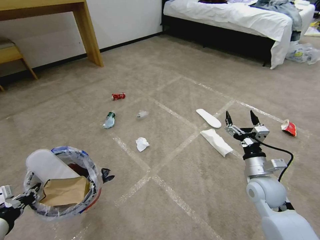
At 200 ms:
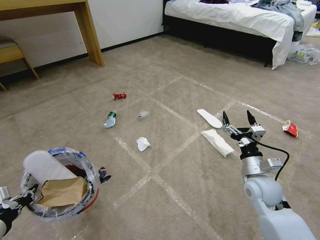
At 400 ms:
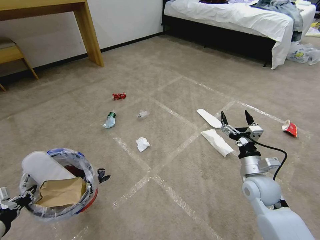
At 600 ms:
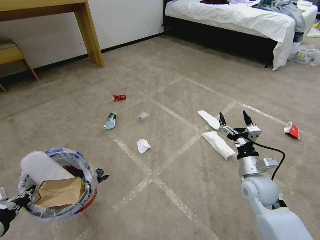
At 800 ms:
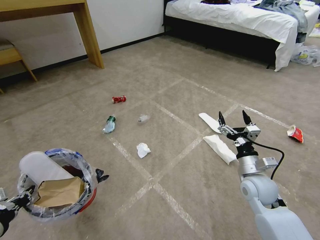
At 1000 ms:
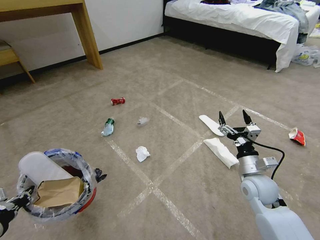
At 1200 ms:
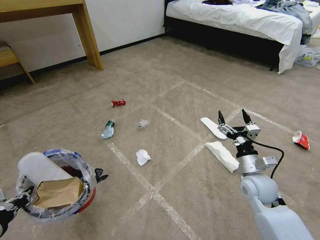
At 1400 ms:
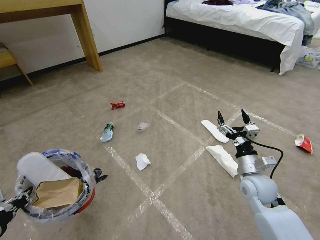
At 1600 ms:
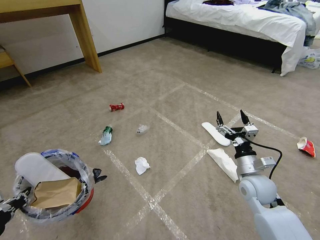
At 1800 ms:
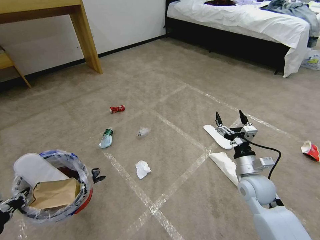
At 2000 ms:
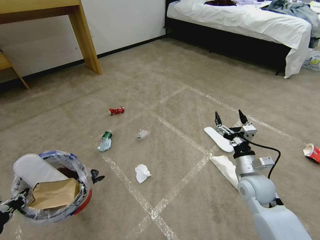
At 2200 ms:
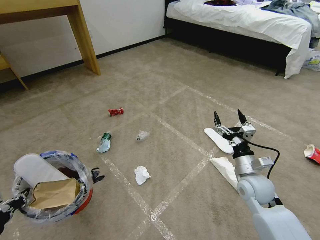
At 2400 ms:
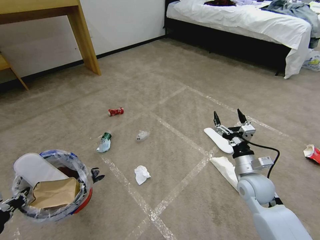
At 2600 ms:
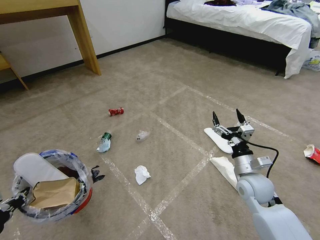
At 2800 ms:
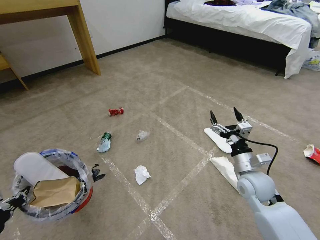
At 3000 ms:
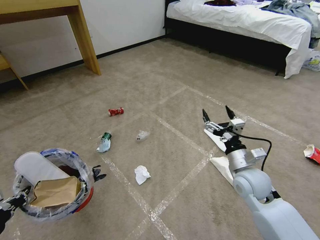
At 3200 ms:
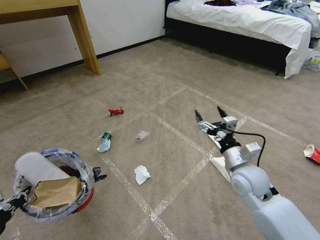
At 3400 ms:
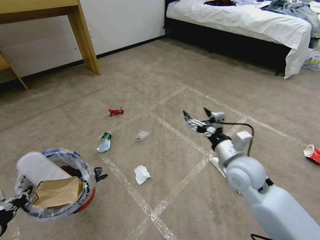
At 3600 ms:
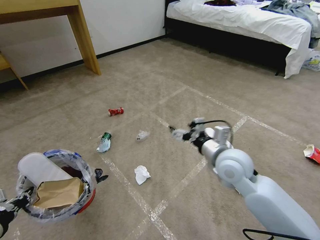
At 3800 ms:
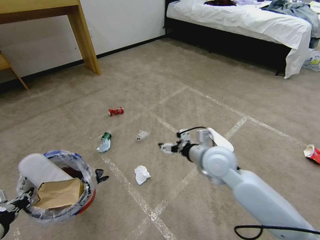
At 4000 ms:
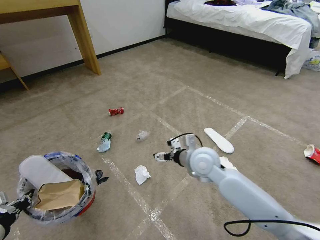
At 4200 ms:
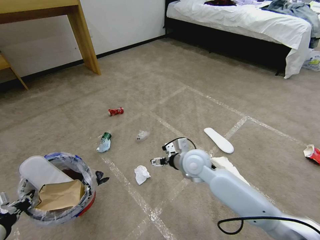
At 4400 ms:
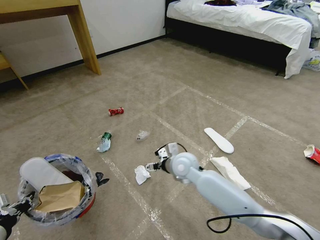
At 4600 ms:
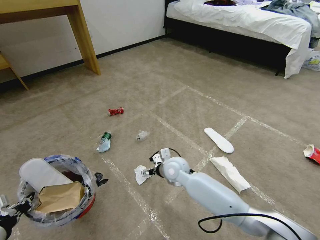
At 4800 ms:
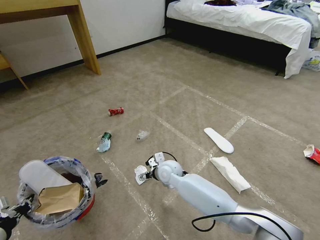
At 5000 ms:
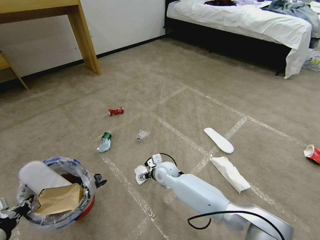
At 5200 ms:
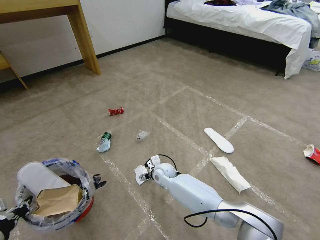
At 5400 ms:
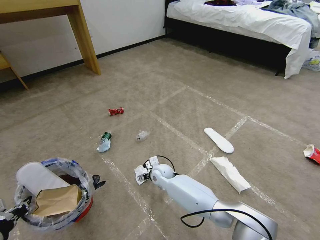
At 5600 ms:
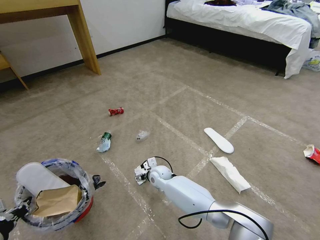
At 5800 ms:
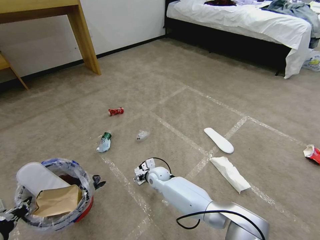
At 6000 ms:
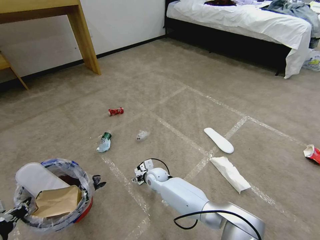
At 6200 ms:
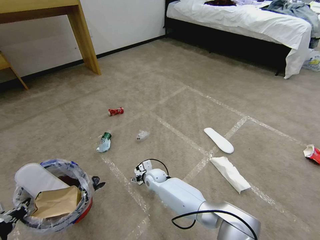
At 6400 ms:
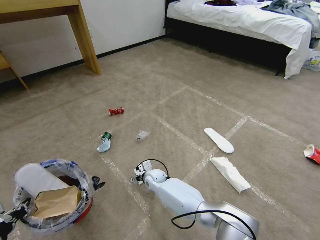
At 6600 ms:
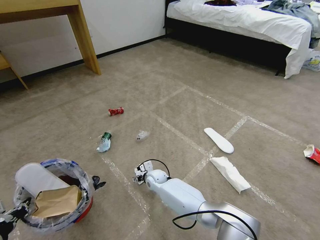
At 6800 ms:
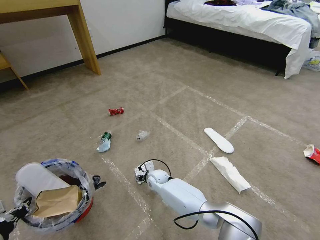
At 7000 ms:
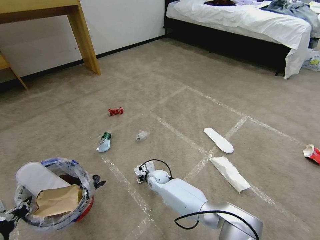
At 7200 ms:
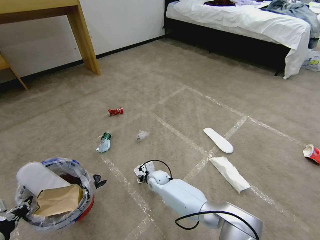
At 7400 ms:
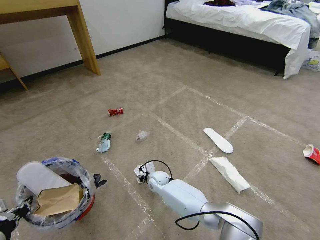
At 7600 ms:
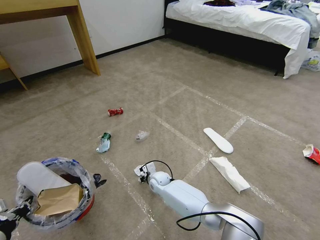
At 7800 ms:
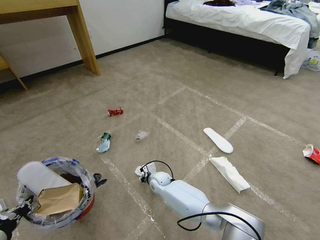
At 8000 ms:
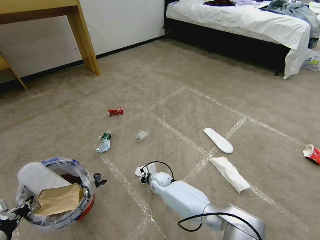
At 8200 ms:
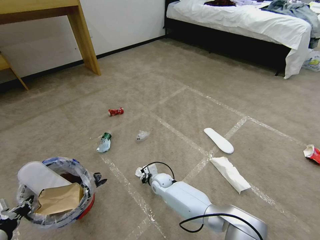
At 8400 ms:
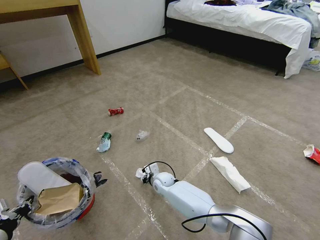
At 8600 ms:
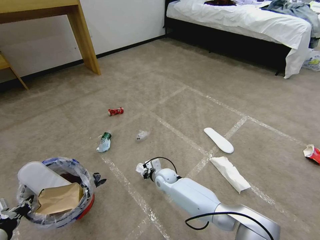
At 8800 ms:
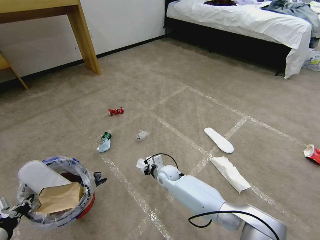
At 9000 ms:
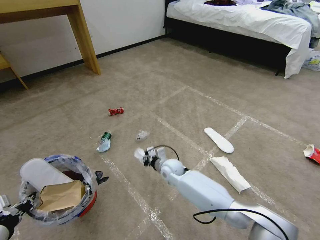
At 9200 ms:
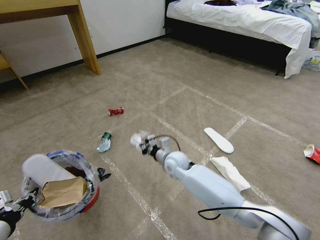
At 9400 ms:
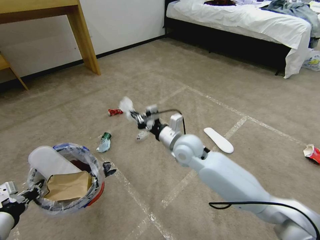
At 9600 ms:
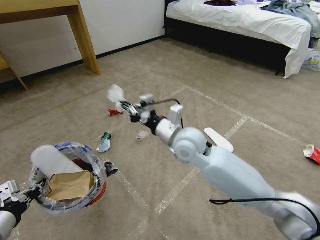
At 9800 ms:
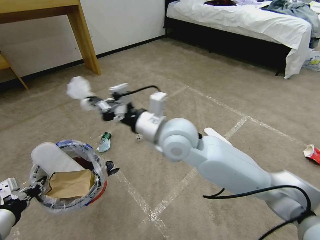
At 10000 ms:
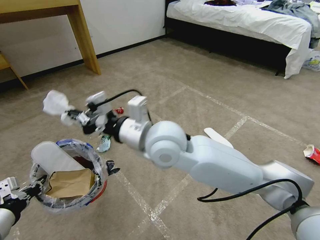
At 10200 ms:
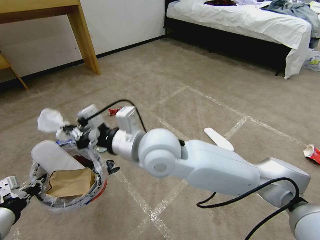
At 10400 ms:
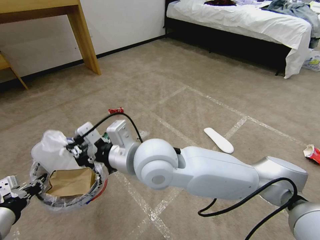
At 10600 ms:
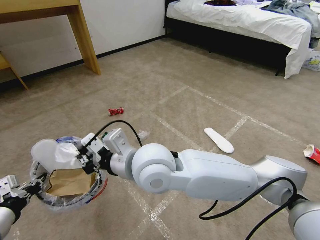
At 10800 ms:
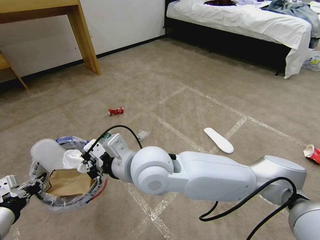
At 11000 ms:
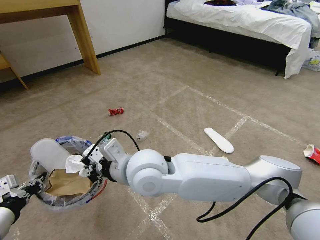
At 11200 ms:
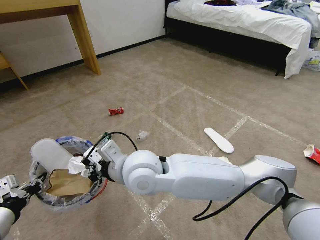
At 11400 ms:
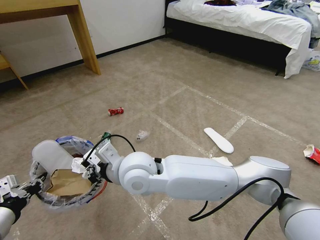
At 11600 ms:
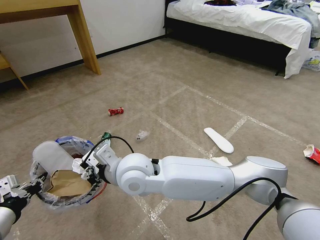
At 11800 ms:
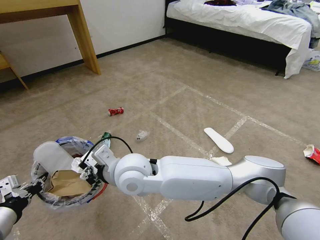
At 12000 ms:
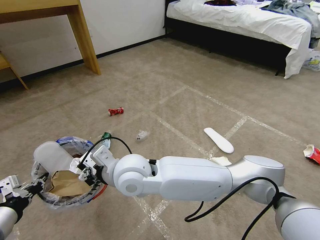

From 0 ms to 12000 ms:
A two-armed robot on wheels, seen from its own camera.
Task of the whole recording: Pick up the trash bin and place the garbage on the floor into it.
From 1600 ms to 3000 ms: There are only small adjustments of the grippers.
From 3000 ms to 4400 ms: The right gripper goes about 20 cm to the left and forward.
From 4400 ms to 6000 ms: The right gripper goes approximately 20 cm downward and to the left.
From 6000 ms to 7600 ms: The right gripper closes up.
From 7600 ms to 9000 ms: The right gripper shifts about 10 cm upward.
From 9000 ms to 10400 ms: The right gripper shifts some 35 cm upward and backward; the left gripper ends up roughly 5 cm from where it was.
From 10400 ms to 12000 ms: The right gripper shifts roughly 10 cm downward and to the left.

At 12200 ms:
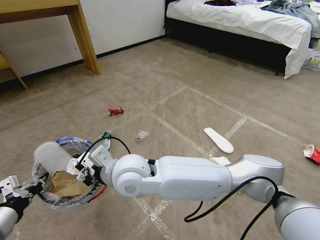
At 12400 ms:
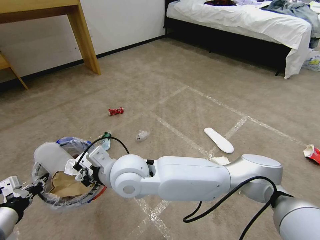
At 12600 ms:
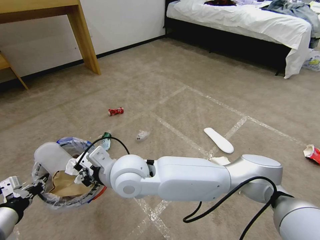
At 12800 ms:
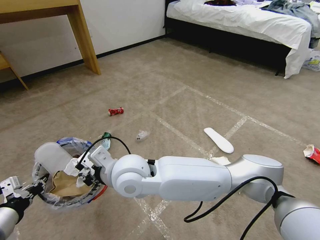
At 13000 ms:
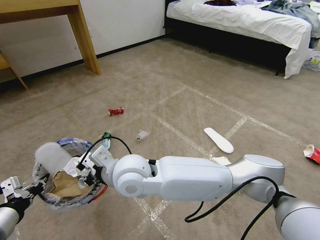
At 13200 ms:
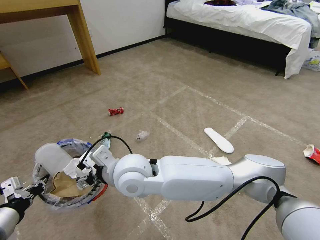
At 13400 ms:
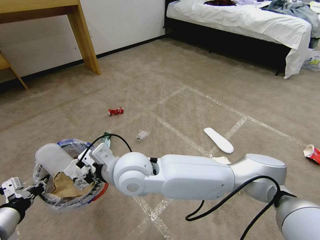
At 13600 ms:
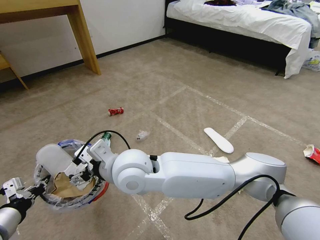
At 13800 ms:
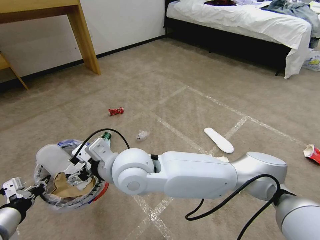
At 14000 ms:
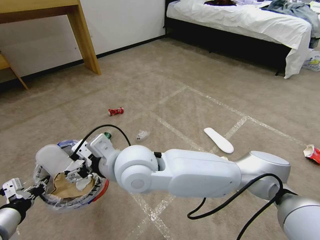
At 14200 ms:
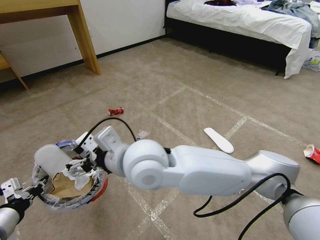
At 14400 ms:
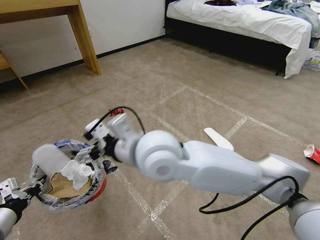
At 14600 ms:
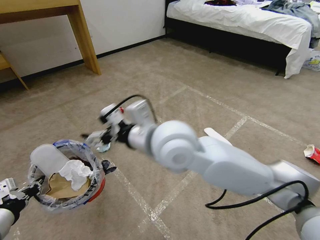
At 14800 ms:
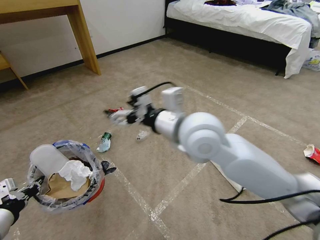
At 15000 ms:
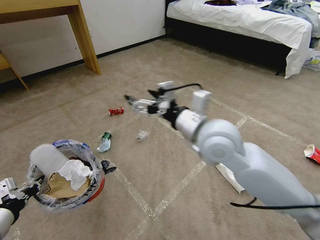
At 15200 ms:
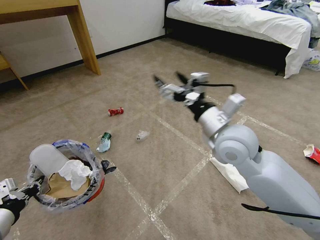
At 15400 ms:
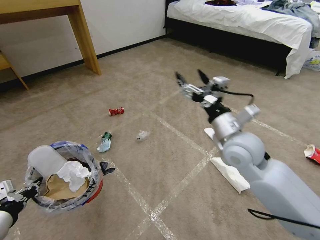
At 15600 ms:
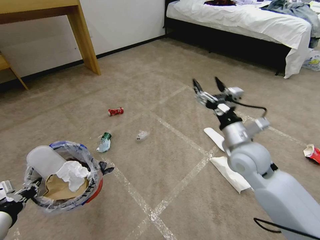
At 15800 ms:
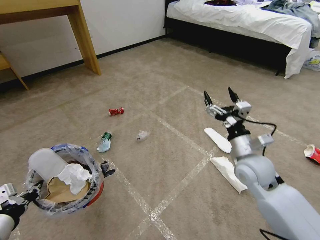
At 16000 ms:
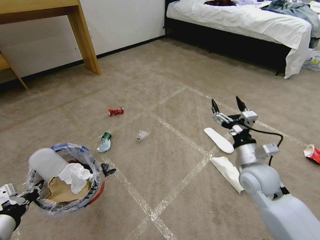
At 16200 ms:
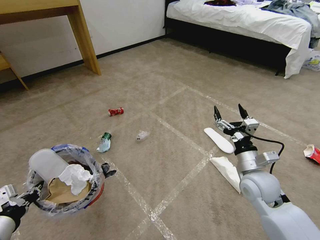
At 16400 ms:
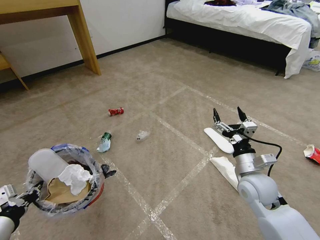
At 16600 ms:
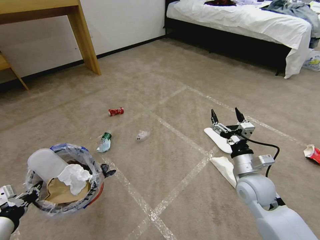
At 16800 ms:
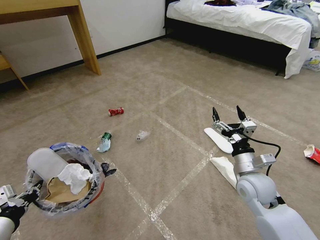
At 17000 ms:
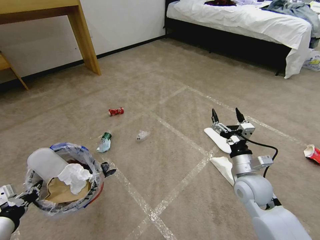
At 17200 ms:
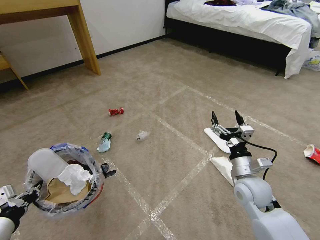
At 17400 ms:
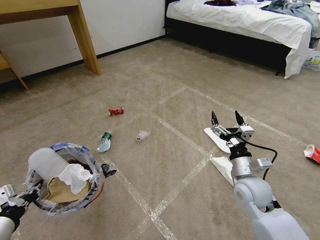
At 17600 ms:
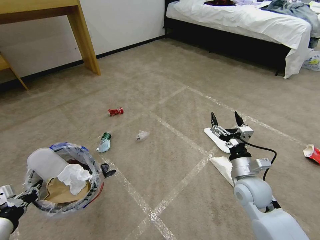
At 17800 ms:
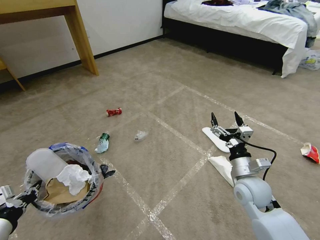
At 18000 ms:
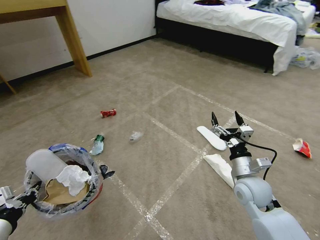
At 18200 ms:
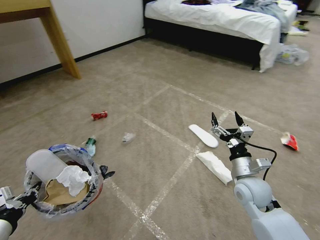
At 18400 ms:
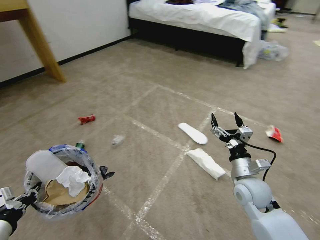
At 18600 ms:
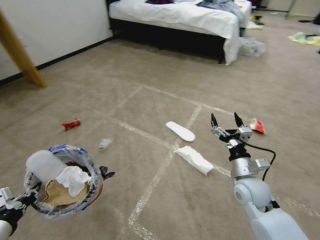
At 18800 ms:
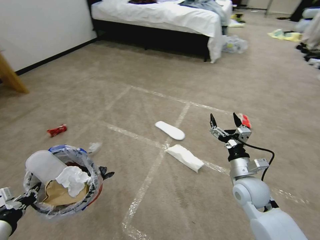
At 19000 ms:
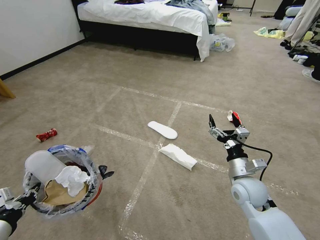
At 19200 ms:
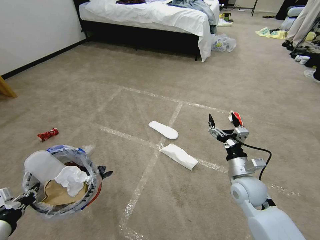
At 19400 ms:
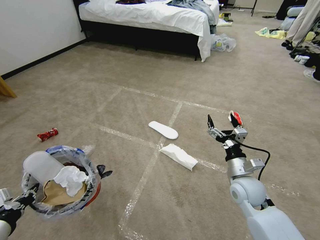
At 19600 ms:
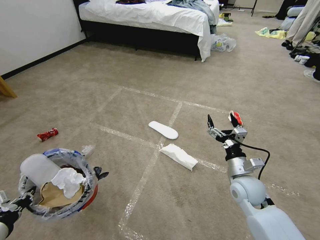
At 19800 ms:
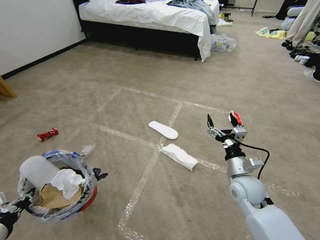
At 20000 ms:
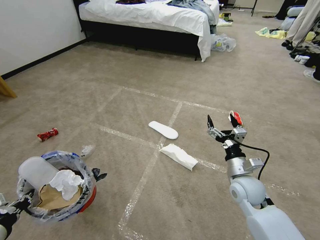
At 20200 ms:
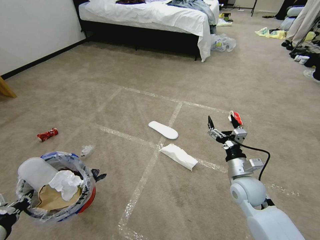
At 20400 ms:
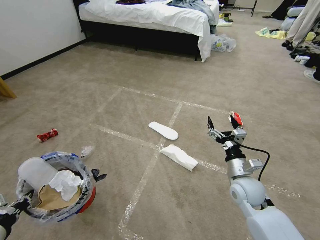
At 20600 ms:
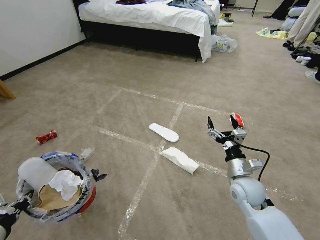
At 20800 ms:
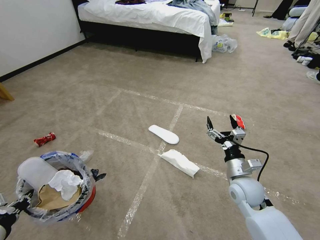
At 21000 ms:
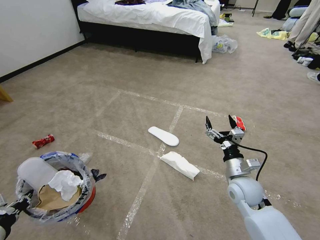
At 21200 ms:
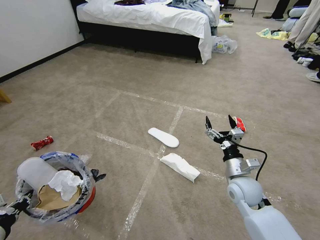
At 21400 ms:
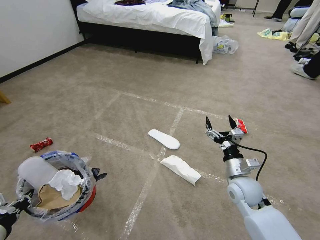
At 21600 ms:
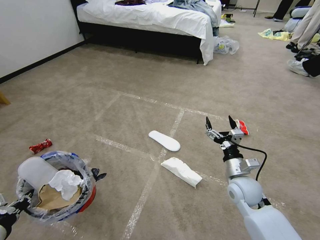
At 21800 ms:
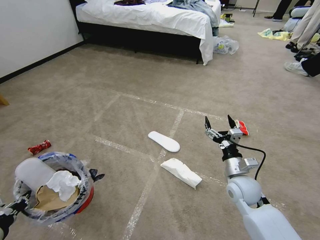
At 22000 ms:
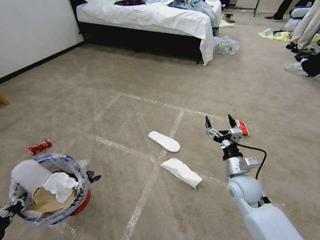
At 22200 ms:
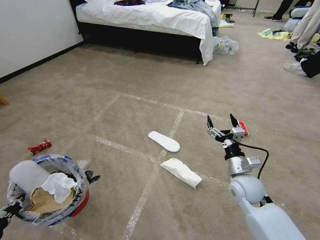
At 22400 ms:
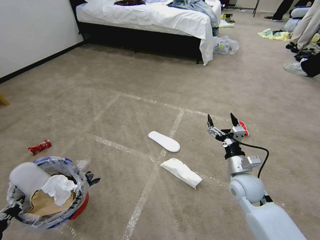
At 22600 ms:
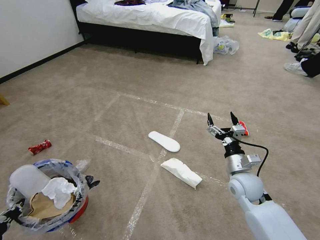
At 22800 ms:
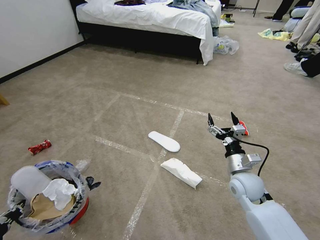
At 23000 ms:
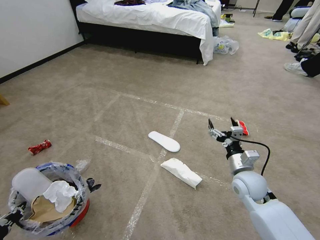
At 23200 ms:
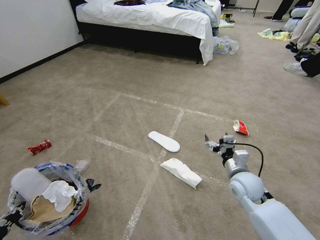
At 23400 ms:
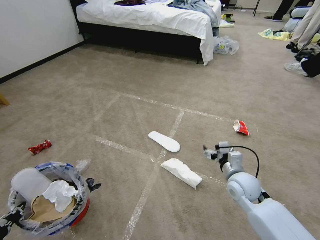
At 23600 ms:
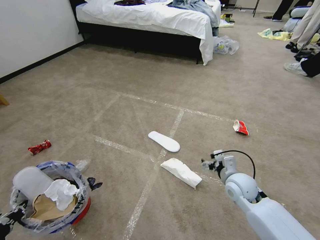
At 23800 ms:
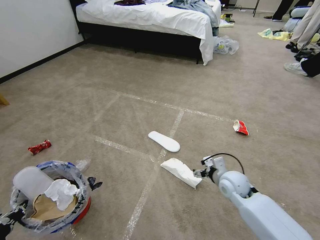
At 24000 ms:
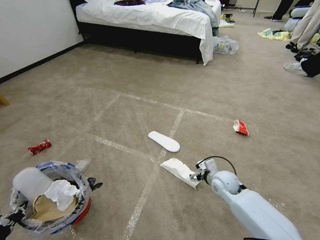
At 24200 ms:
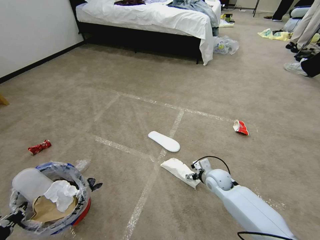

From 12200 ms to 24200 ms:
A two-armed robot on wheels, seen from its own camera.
Task of the whole recording: Pick up the trash bin and place the garbage on the floor into it.
From 12200 ms to 13800 ms: The right gripper opens its fingers.
From 13800 ms to 15200 ms: The right gripper travels to the right by about 25 cm.
From 15200 ms to 16600 ms: The right gripper moves downward and to the right, about 20 cm.
From 19800 ms to 21200 ms: Both grippers stay put.
From 21200 ms to 22600 ms: There are only small adjustments of the grippers.
From 22600 ms to 24200 ms: The right gripper travels downward and forward by about 10 cm.
